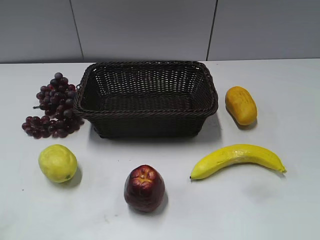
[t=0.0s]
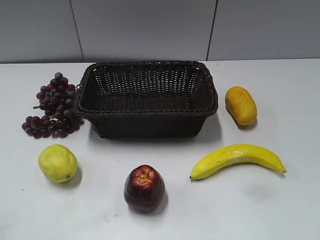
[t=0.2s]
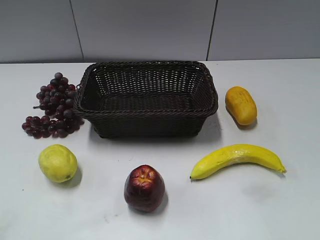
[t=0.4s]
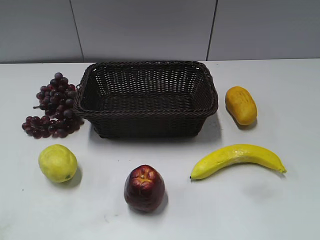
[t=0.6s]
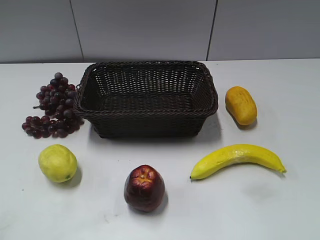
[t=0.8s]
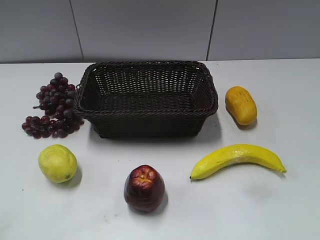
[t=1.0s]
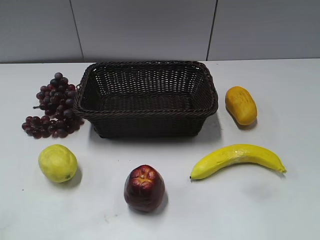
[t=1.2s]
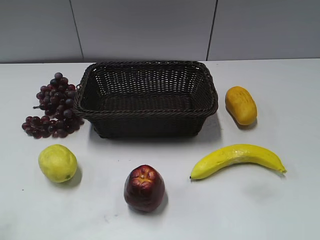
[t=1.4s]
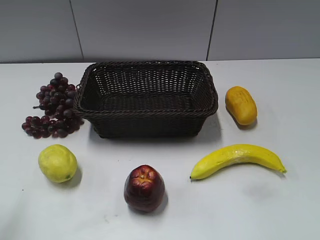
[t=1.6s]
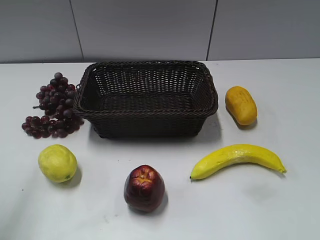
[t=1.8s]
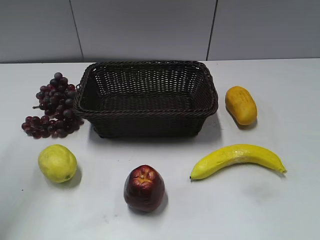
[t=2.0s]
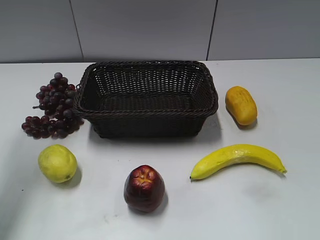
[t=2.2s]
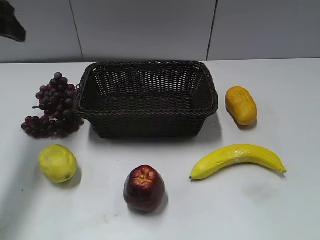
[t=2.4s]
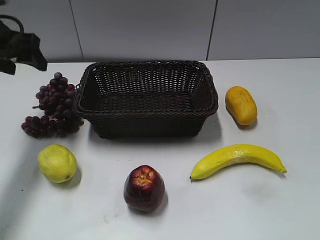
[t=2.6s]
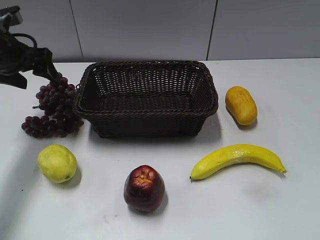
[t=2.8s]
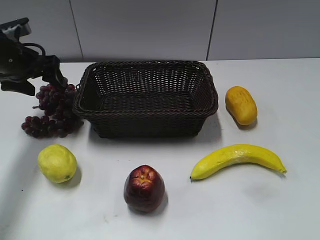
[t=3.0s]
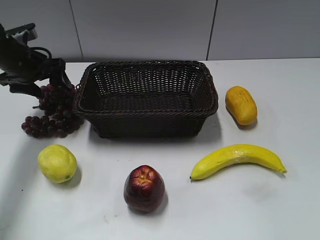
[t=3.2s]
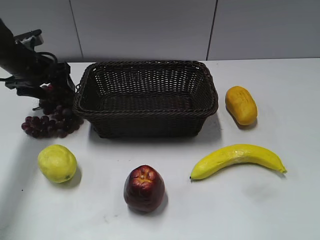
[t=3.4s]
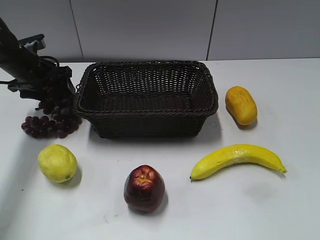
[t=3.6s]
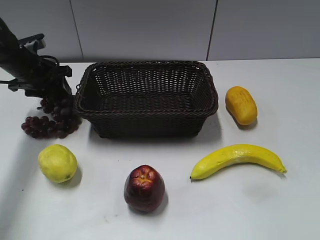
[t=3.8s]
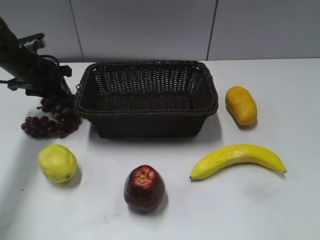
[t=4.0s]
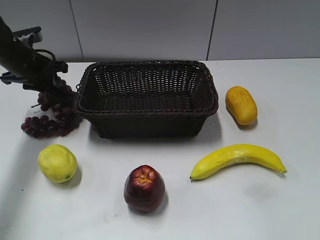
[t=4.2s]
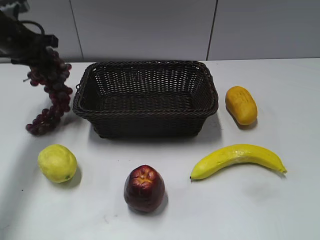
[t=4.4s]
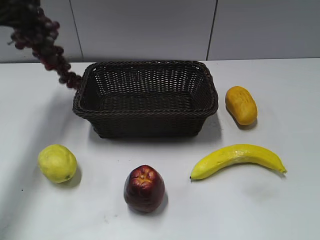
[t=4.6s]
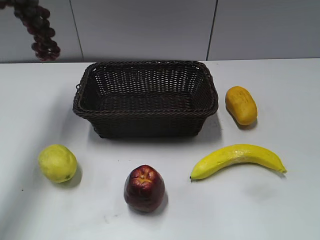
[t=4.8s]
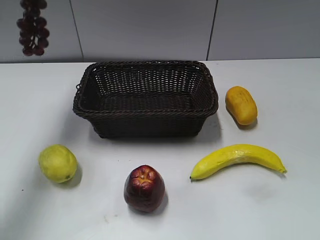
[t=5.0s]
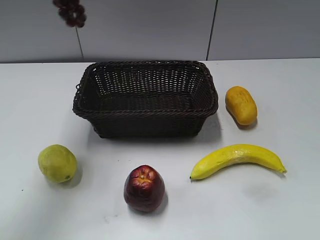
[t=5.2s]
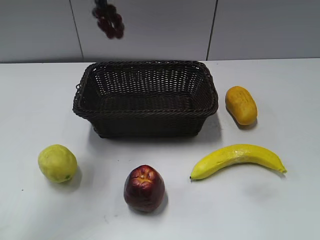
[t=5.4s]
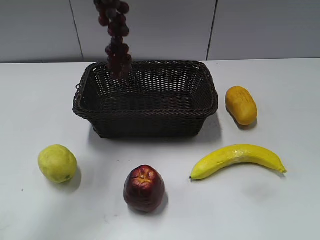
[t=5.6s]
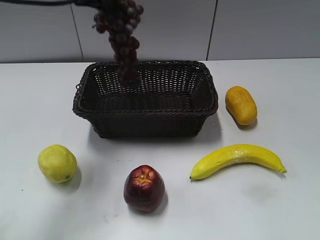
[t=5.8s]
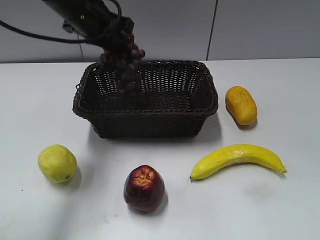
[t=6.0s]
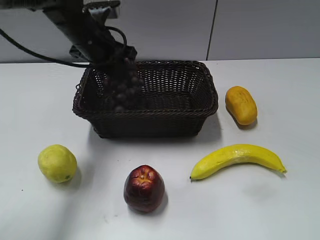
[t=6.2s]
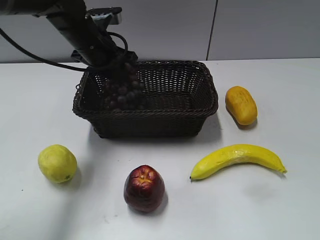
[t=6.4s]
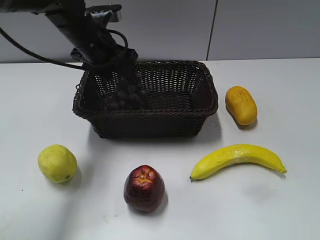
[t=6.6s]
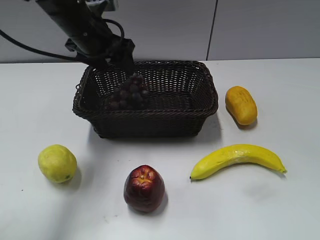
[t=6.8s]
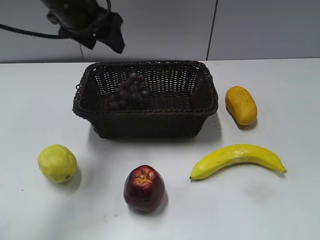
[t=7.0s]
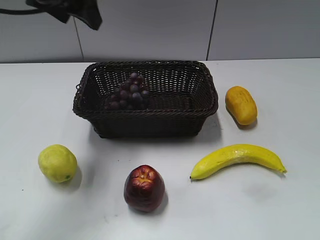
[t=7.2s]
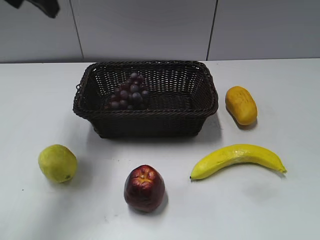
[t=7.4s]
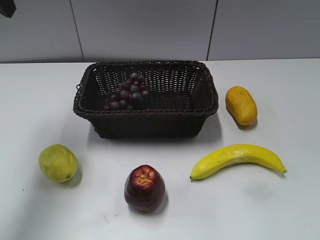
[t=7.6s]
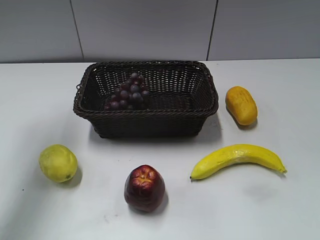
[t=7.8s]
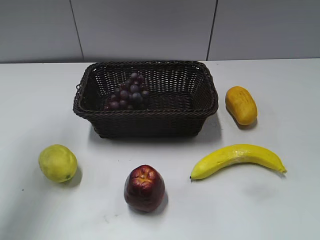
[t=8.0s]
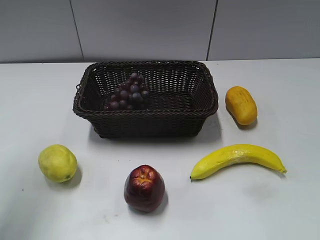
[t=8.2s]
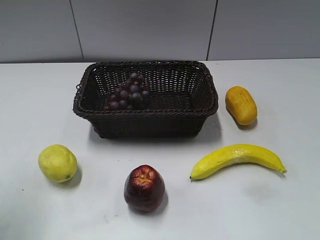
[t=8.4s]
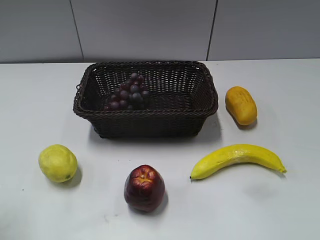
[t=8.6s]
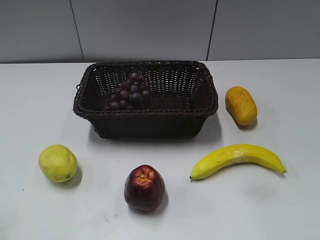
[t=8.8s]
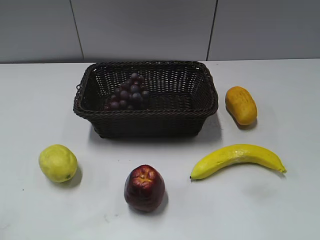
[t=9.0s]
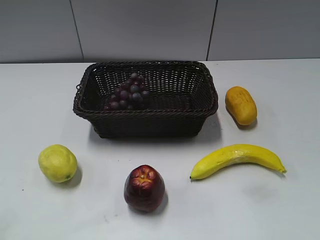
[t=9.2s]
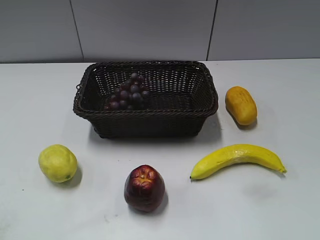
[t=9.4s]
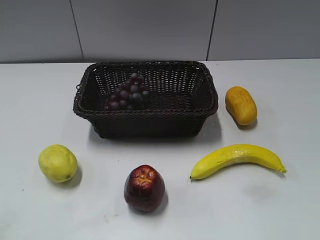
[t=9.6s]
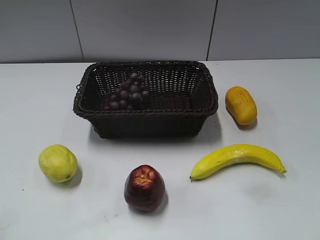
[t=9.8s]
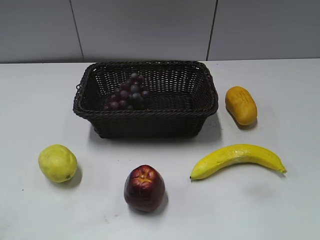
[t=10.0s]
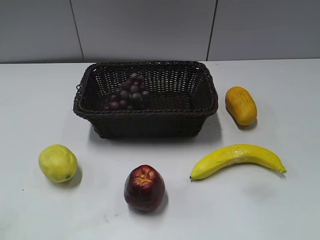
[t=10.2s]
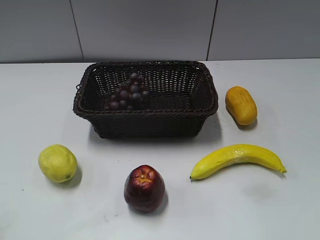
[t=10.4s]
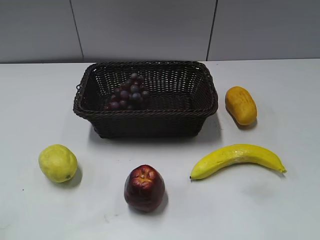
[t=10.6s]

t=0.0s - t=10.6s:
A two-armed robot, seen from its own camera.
Step, t=2.4s - t=3.8s: Grasp the grape with left gripper.
Step, t=4.0s - t=6.6s: Place the grape in the basket with left gripper.
t=1.6s - t=3.0s: The left gripper goes some 30 cm forward and downward.
t=3.0s - t=4.6s: The left gripper moves upward, roughly 10 cm, and closes.
t=4.6s - t=6.0s: The left gripper heads to the right, covering approximately 15 cm, and goes upward and returns, approximately 15 cm each way.
t=6.0s - t=7.6s: The left gripper moves to the left, upward and backward, roughly 20 cm, and opens up.
t=7.6s - t=9.0s: The left gripper shifts approximately 30 cm backward.
